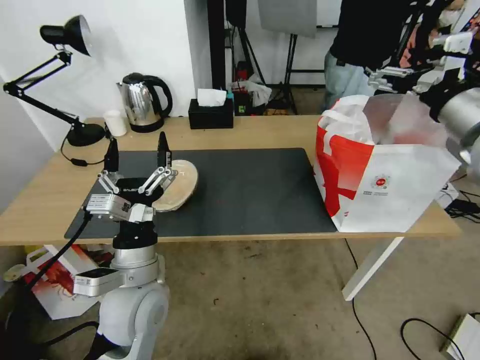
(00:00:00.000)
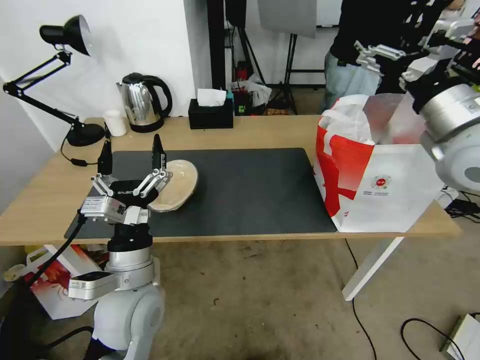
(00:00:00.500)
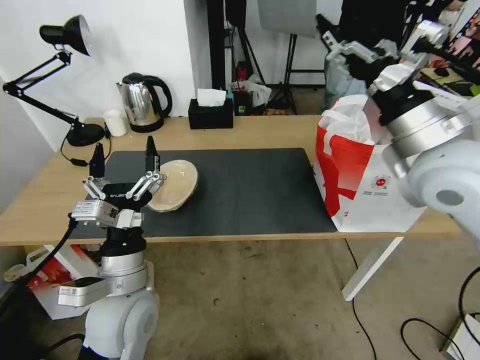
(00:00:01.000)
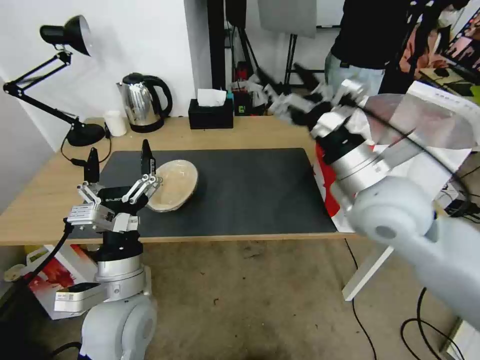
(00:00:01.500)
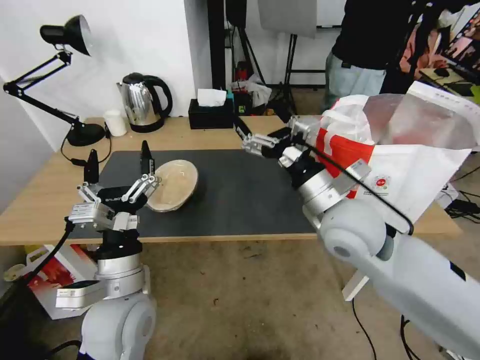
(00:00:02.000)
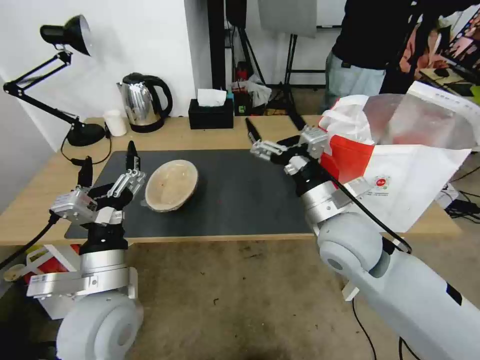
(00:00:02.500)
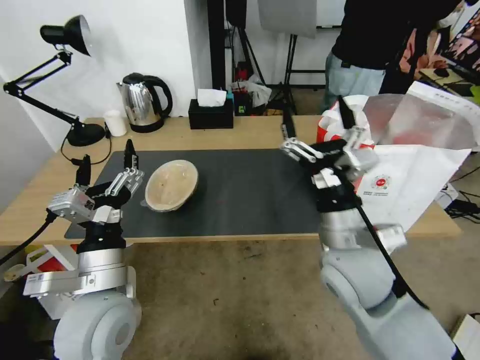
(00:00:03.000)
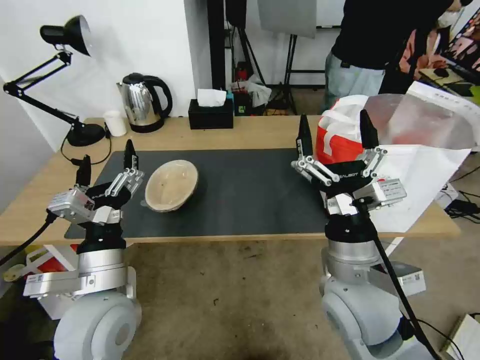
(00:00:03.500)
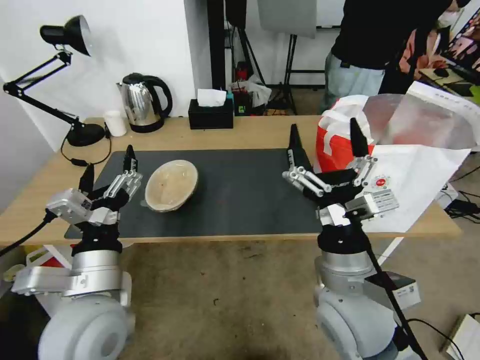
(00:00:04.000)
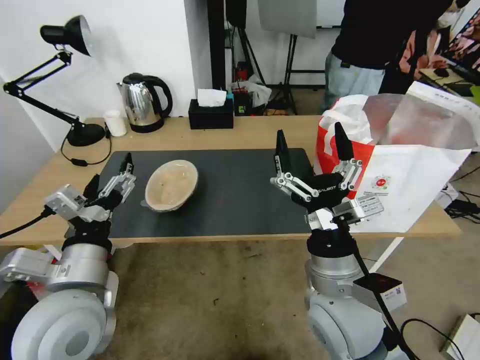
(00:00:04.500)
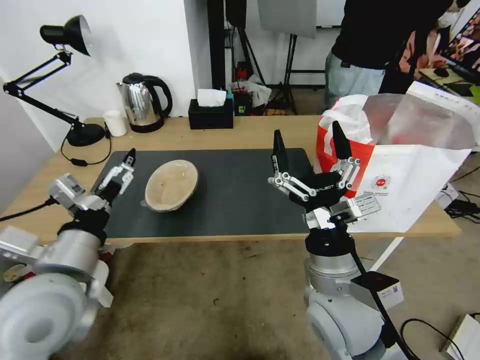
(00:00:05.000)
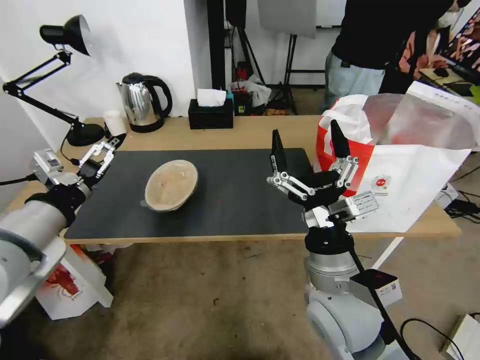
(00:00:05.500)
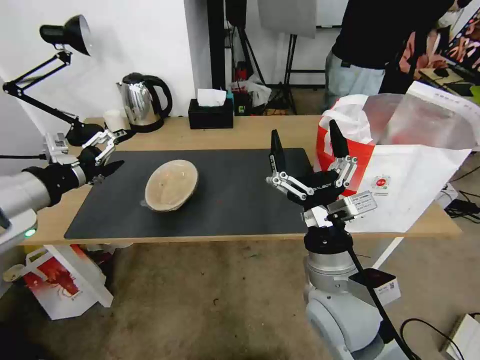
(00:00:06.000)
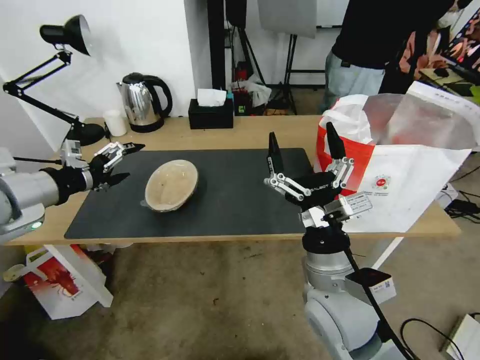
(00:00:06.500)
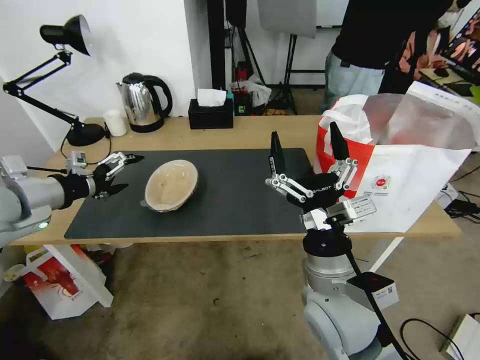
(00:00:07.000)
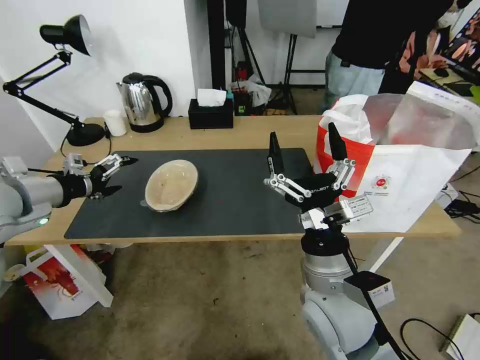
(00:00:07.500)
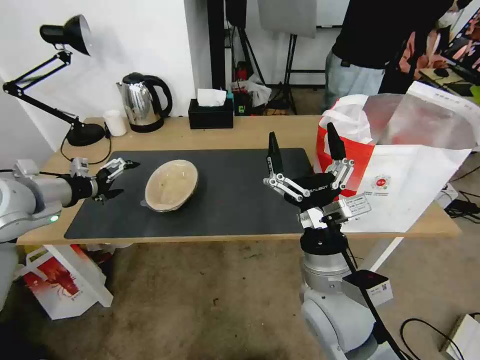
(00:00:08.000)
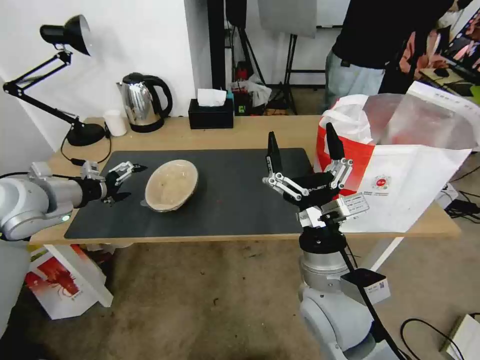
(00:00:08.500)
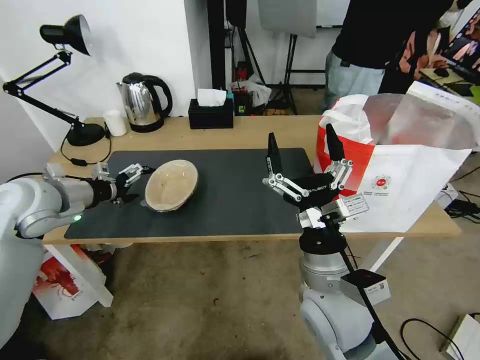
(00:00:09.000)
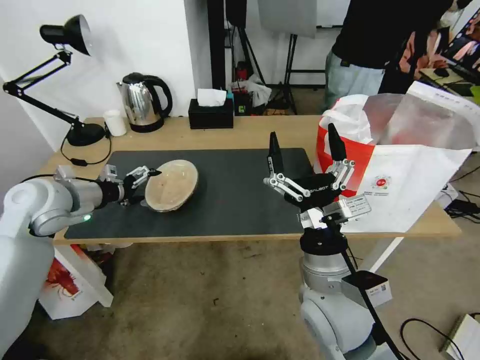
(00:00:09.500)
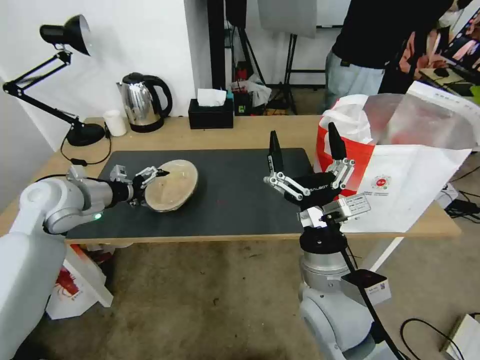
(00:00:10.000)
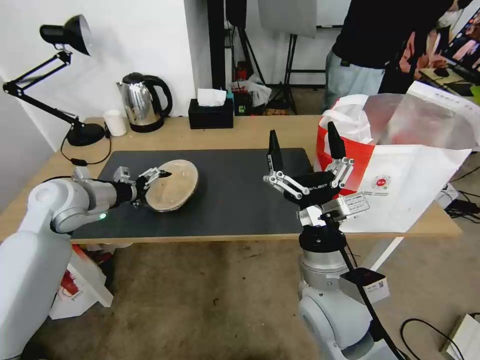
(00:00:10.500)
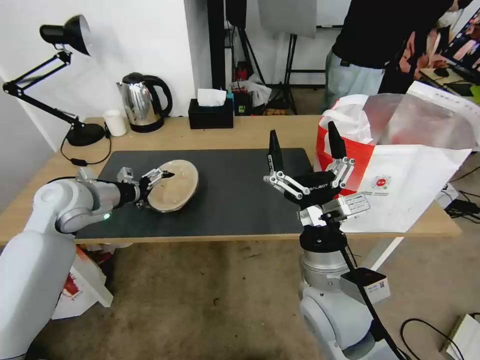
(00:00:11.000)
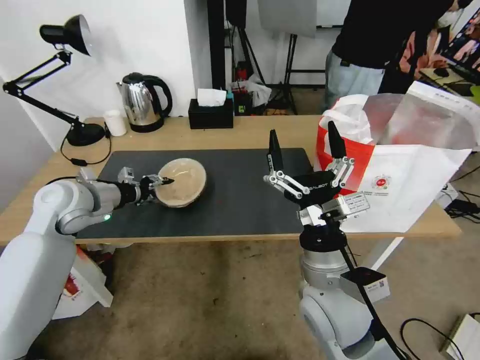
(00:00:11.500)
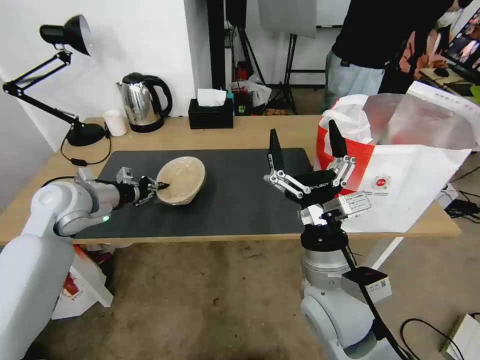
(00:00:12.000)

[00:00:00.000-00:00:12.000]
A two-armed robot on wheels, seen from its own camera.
Task of the whole recording: Pick up the trash from the table and place it into the takeout bag.
00:00:00.000 to 00:00:02.000: The right gripper shifts some 25 cm to the left and downward.
00:00:02.000 to 00:00:04.000: The right gripper is displaced backward and downward by some 10 cm; the left gripper shifts by approximately 5 cm.
00:00:04.000 to 00:00:06.000: The left gripper is displaced to the left, upward and forward by approximately 20 cm.
00:00:06.000 to 00:00:08.000: The left gripper heads forward, downward and to the left, covering roughly 10 cm.
00:00:08.000 to 00:00:10.000: The left gripper goes some 5 cm downward.
00:00:10.000 to 00:00:12.000: The left gripper closes.

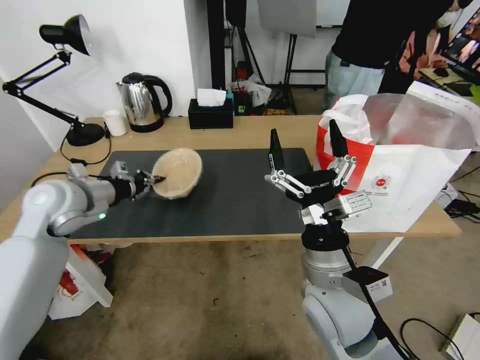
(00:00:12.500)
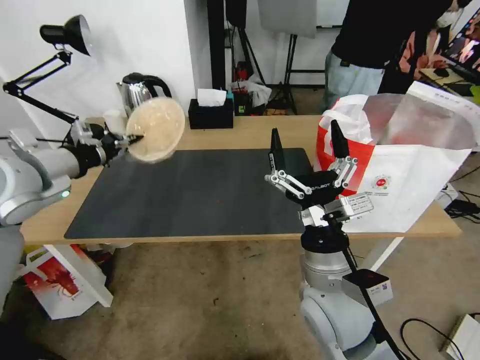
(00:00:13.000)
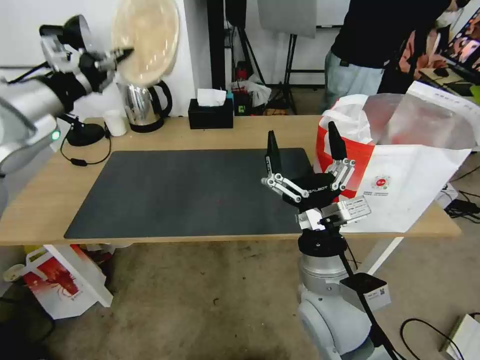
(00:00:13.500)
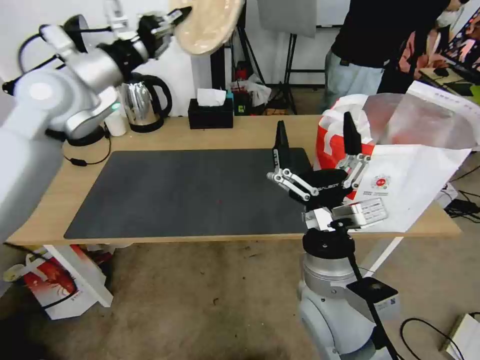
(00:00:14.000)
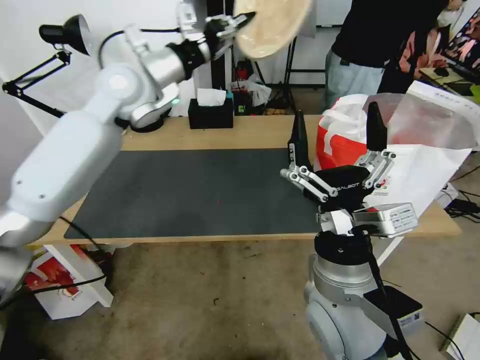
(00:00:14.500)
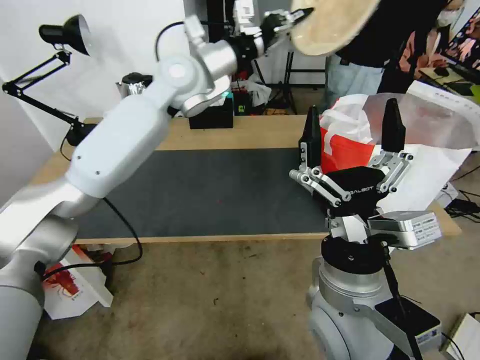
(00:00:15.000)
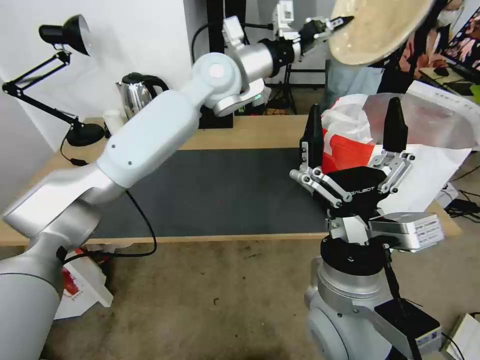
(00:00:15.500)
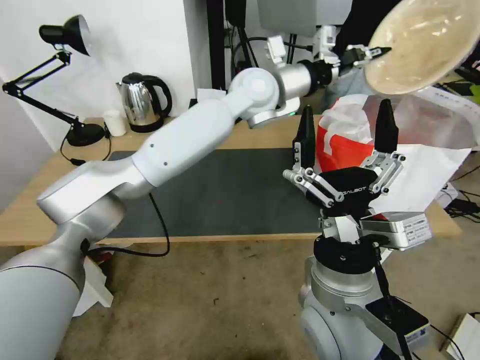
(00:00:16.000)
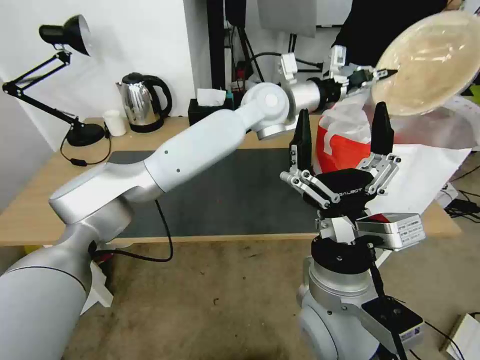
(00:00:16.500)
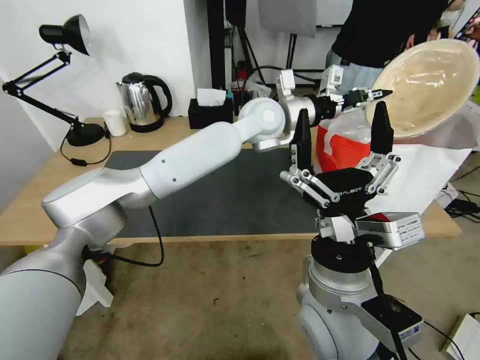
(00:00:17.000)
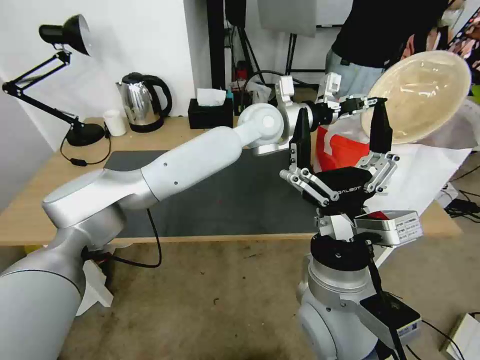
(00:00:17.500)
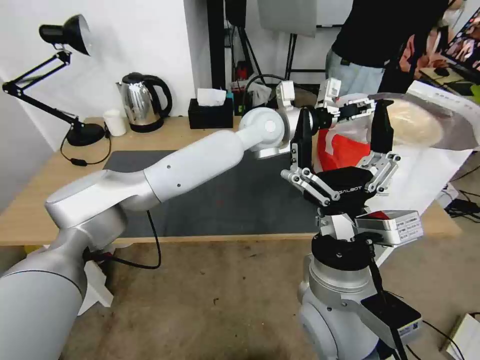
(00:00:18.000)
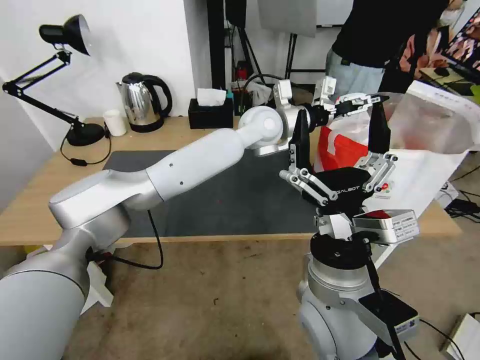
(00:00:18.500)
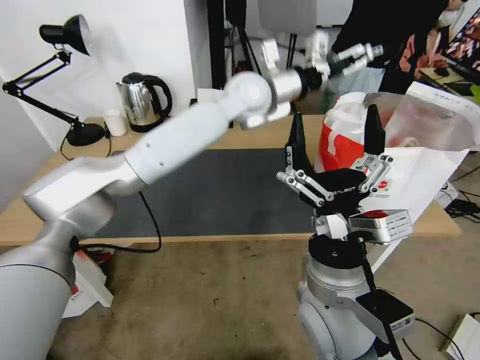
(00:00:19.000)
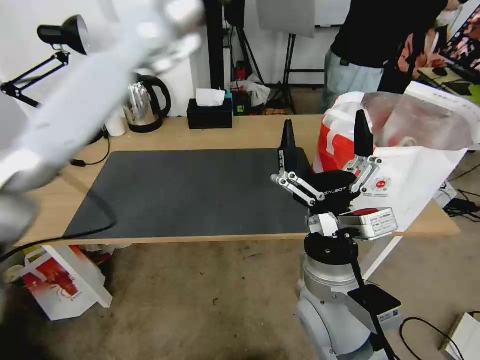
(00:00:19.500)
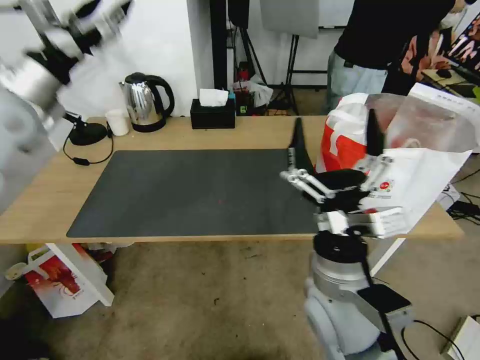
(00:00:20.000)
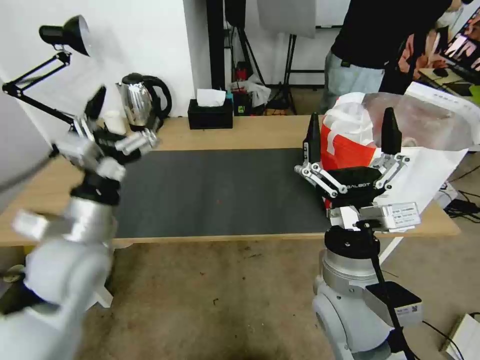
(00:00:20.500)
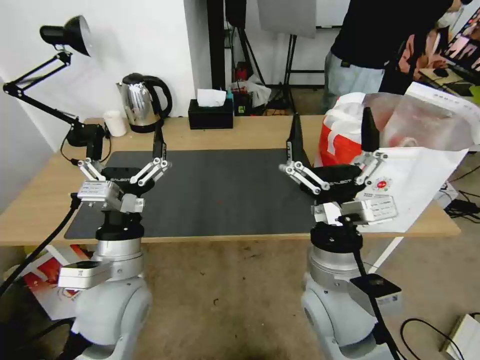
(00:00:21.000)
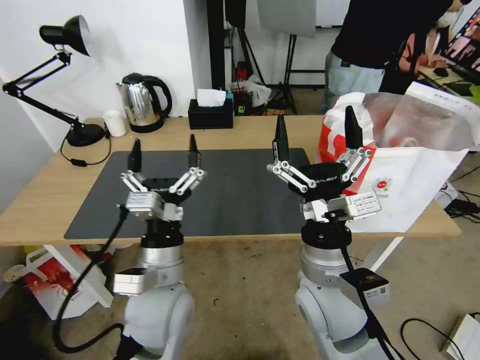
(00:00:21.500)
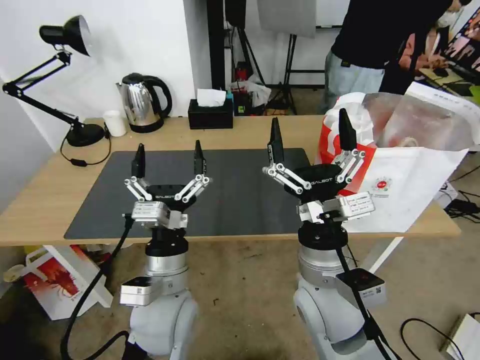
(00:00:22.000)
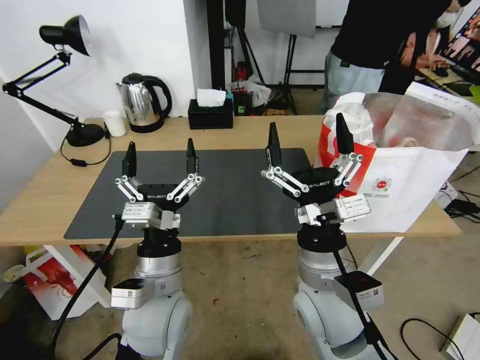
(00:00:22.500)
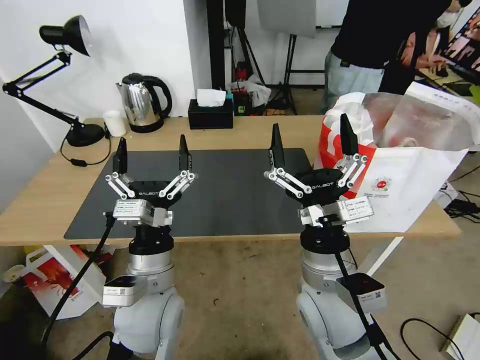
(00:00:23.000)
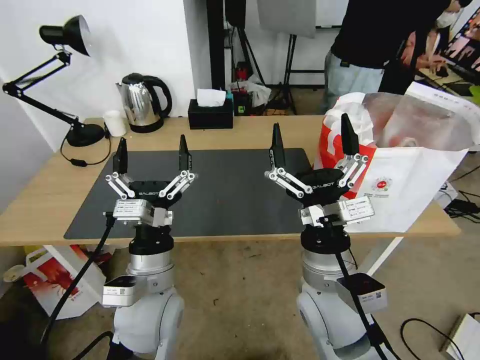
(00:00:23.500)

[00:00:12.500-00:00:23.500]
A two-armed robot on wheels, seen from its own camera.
Task of the whole recording: Pick up the trash from the table and place it into the takeout bag.
00:00:12.500 to 00:00:14.500: The left gripper shifts approximately 25 cm upward, to the right and forward.
00:00:14.500 to 00:00:16.000: The left gripper moves to the right, roughly 20 cm.
00:00:16.000 to 00:00:18.000: The left gripper shifts some 10 cm downward, and opens its fingers.
00:00:18.000 to 00:00:20.000: The left gripper heads to the left, covering roughly 40 cm, and opens up.
00:00:20.000 to 00:00:21.500: The left gripper moves to the right, downward and backward, about 35 cm.
00:00:21.500 to 00:00:23.500: The grippers stay close to where they were, moving slightly.

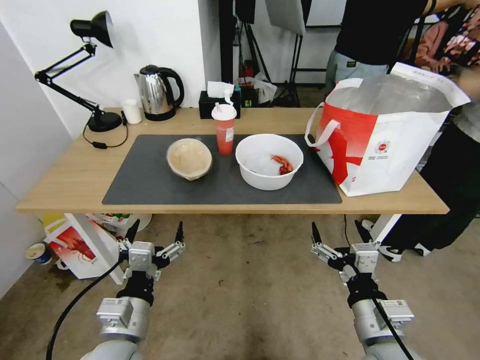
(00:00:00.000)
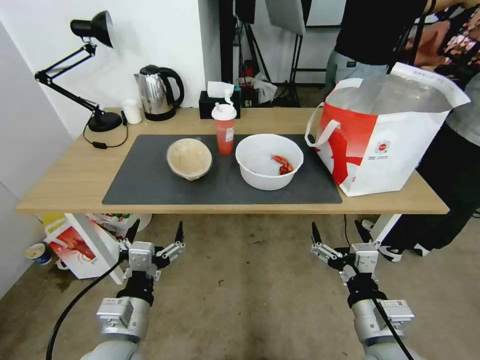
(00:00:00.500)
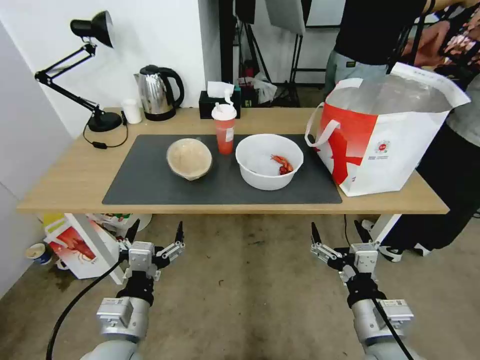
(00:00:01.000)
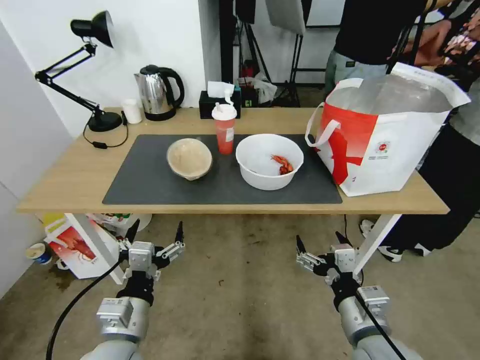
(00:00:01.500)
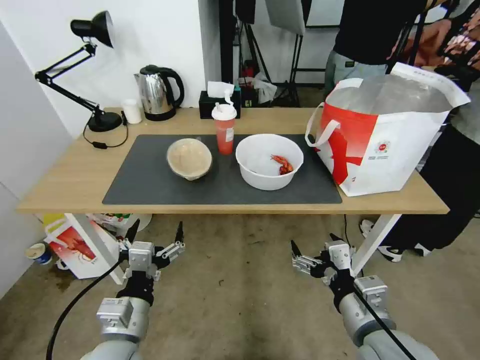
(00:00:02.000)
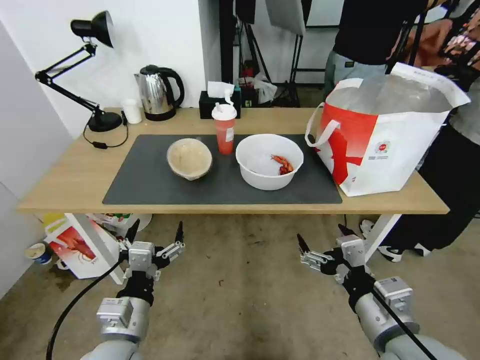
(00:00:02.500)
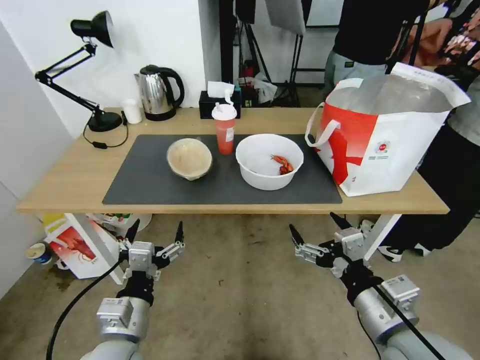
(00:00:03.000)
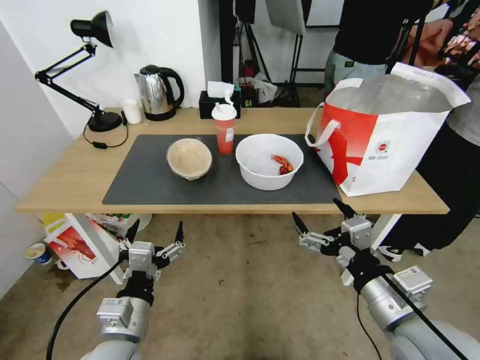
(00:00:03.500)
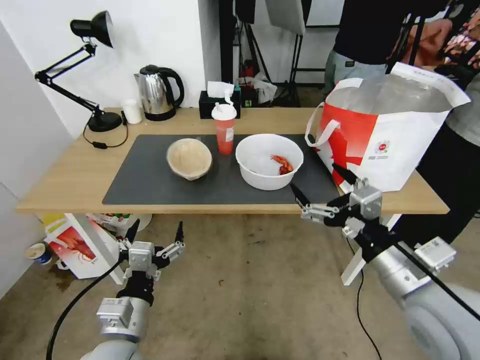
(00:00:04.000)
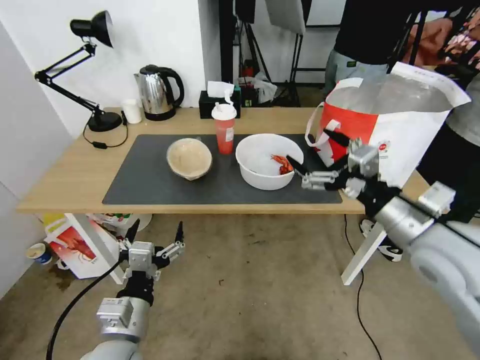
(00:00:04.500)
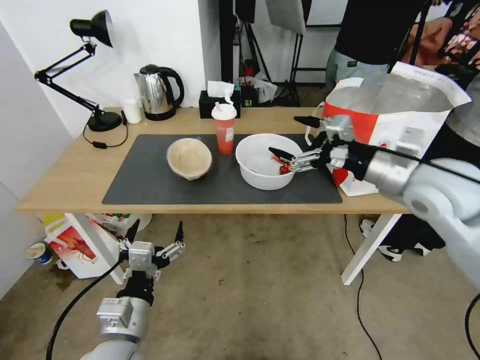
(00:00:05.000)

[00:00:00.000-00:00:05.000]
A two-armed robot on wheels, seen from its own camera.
Task of the whole recording: Pick up the trash from the table and place it into the takeout bag.
00:00:02.500 to 00:00:05.000: The right gripper moves forward and upward, about 25 cm.
